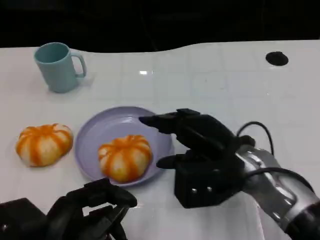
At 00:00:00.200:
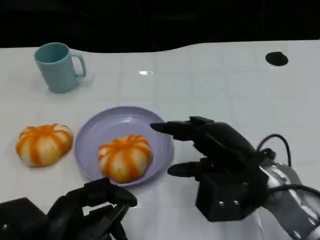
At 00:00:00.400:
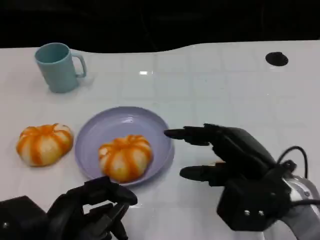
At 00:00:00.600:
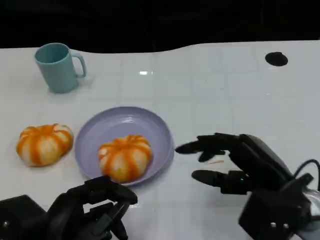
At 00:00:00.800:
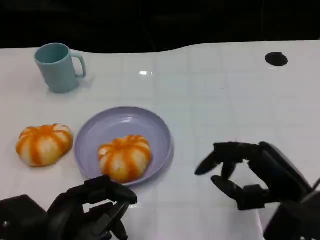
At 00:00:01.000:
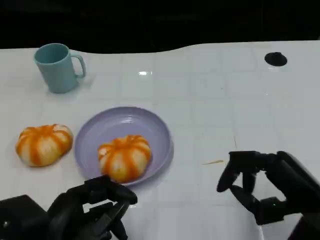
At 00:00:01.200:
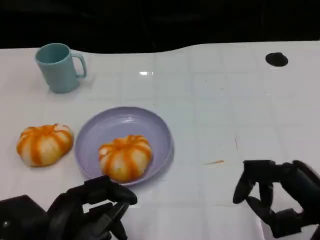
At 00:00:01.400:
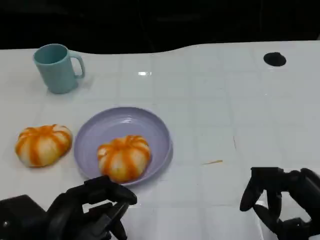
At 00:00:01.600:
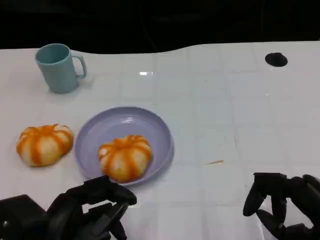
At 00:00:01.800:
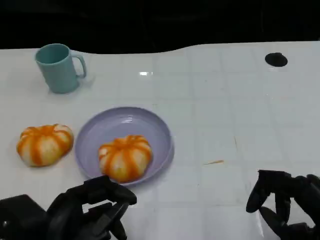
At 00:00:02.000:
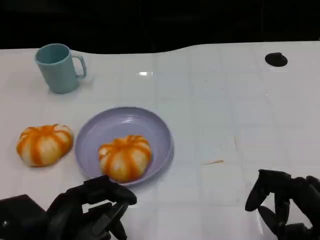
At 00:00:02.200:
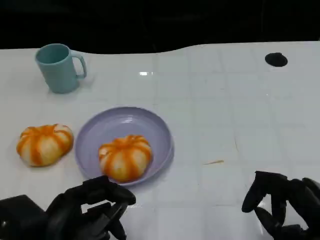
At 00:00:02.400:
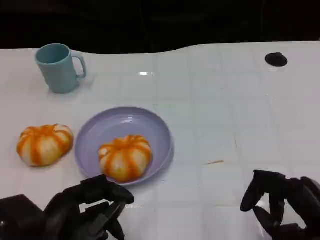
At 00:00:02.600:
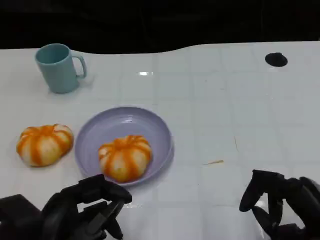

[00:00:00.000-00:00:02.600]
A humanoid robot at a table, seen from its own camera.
Task of the whole recording: Grasp the bread from the table and place it into the plate.
00:00:00.000 to 00:00:01.200: The right hand is displaced to the right and backward by roughly 15 cm.
00:00:01.200 to 00:00:02.600: The hands stay close to where they were, moving slightly.

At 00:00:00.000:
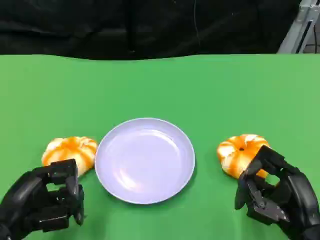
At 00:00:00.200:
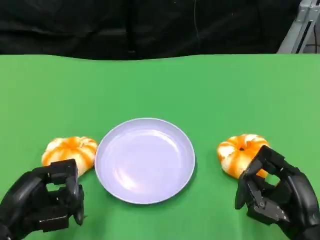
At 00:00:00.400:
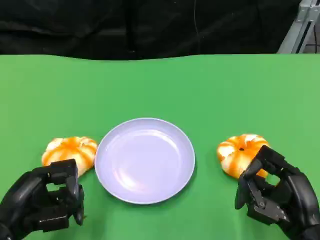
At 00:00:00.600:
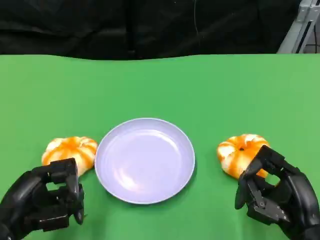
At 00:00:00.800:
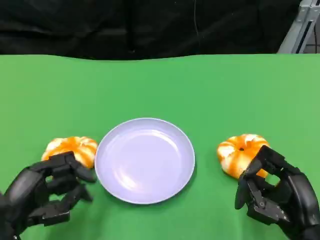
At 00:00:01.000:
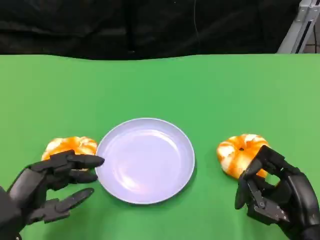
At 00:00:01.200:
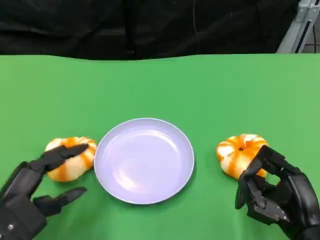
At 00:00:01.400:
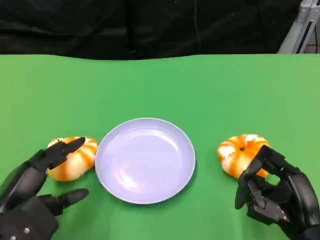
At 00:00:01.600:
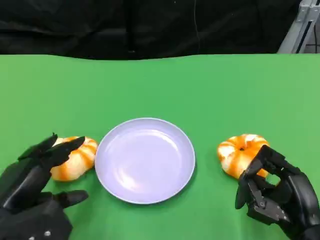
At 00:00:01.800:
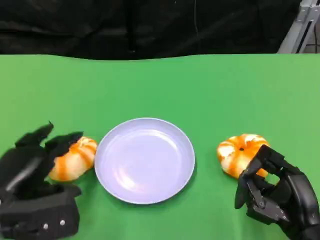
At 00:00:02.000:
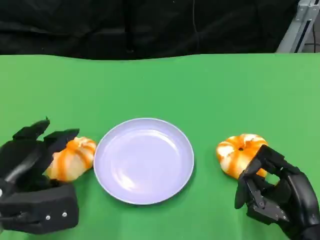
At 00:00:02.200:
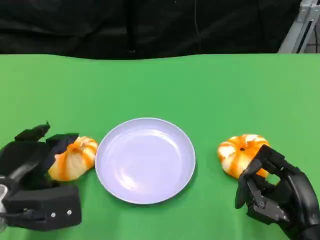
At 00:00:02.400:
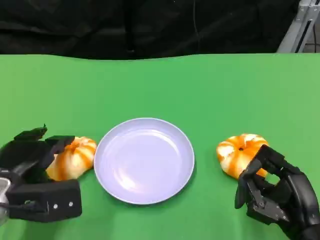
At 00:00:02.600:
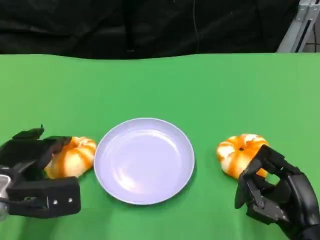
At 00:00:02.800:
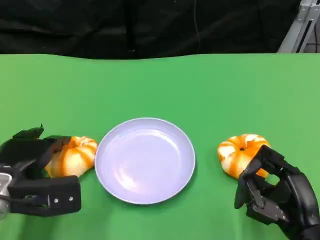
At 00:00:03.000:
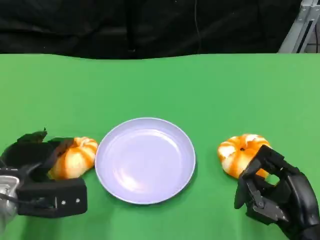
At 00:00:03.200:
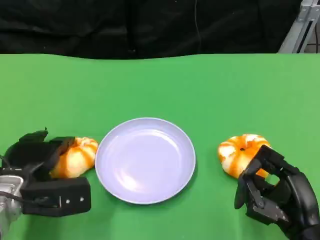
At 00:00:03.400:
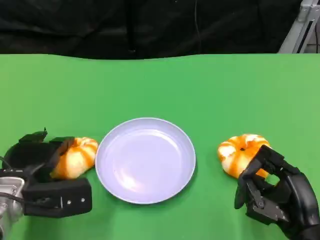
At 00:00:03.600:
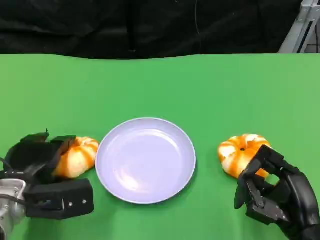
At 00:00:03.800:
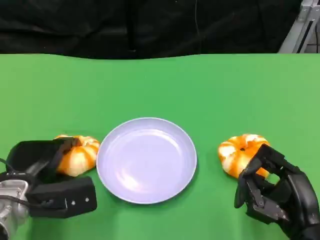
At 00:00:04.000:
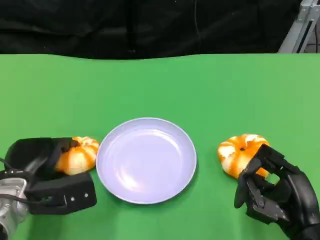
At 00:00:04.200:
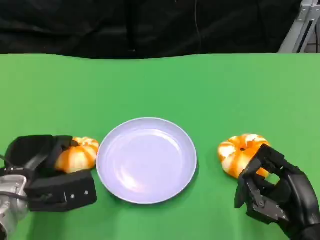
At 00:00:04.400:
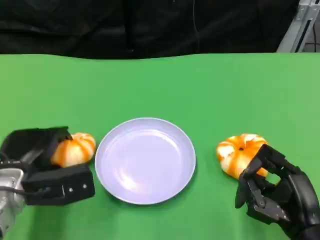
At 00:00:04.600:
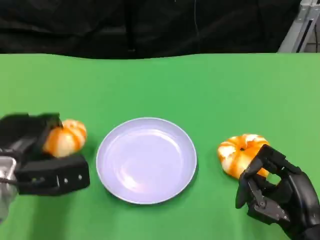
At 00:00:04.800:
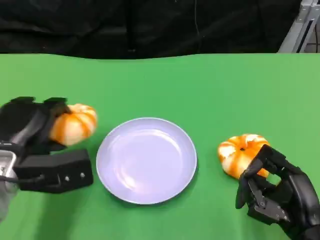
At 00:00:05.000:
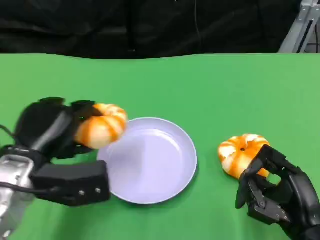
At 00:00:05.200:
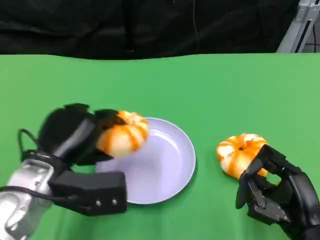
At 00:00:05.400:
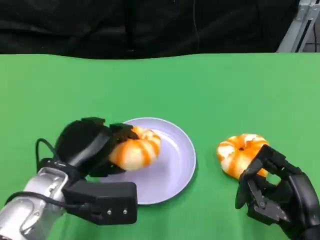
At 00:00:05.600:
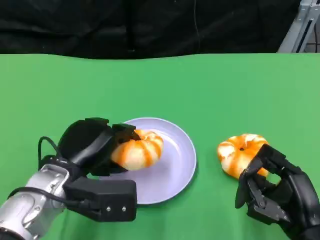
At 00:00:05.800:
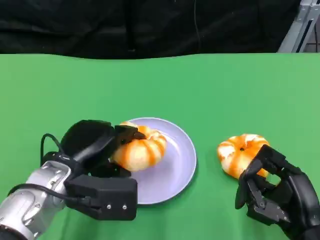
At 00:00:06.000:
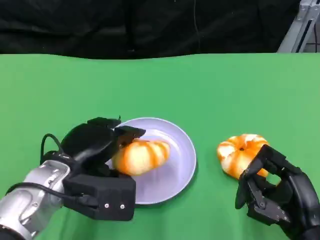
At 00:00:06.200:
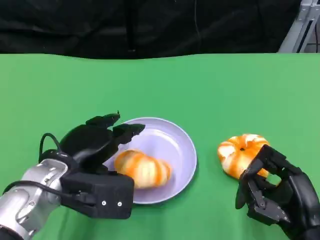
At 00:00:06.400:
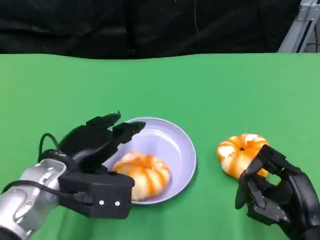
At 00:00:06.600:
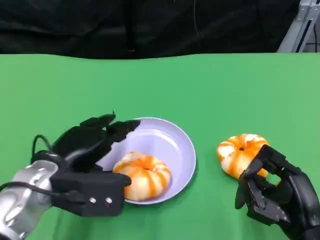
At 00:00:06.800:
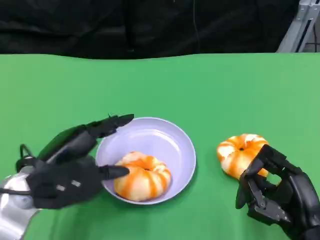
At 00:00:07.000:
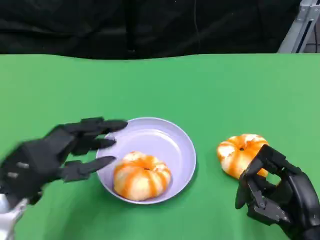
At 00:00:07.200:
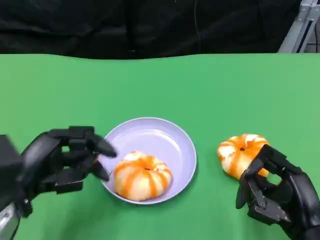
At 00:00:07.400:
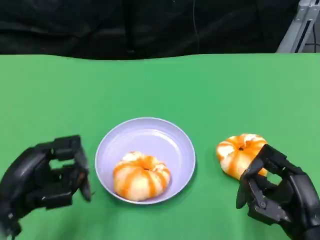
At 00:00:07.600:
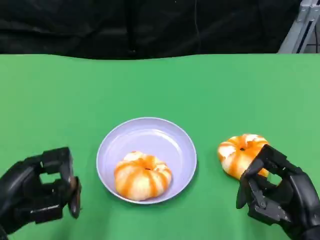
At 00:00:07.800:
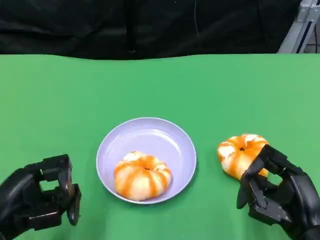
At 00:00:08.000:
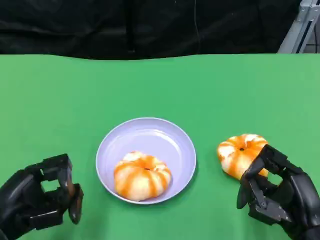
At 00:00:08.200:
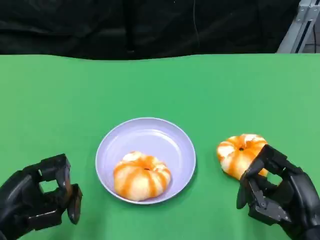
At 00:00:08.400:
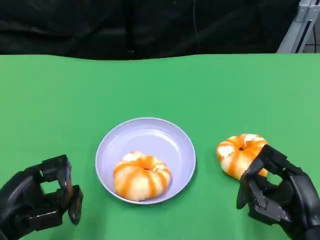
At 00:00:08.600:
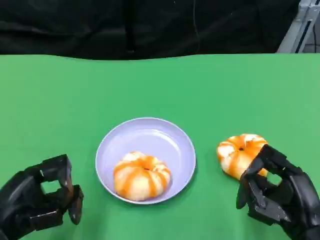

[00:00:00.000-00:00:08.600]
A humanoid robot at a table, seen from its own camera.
Task of the whole recording: Grasp the bread from the table and place it into the plate.
00:00:01.400 to 00:00:02.800: The left hand shifts some 10 cm forward.
00:00:02.800 to 00:00:04.400: There are only small adjustments of the hands.
00:00:04.400 to 00:00:05.800: The left hand shifts approximately 5 cm to the right.
00:00:05.800 to 00:00:07.200: The left hand travels to the left by some 10 cm.
00:00:07.200 to 00:00:08.600: The left hand shifts by approximately 5 cm.

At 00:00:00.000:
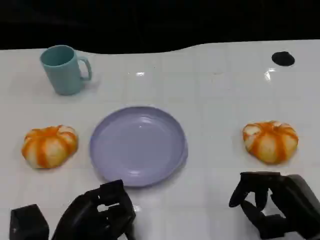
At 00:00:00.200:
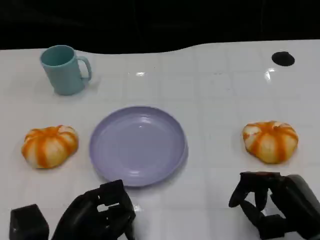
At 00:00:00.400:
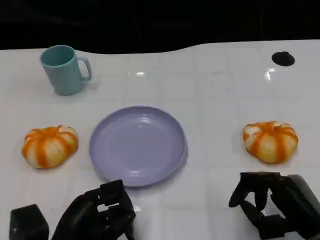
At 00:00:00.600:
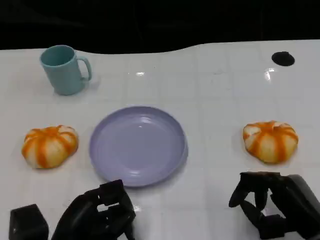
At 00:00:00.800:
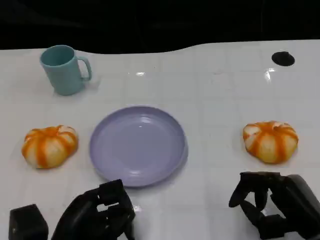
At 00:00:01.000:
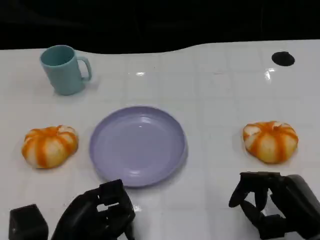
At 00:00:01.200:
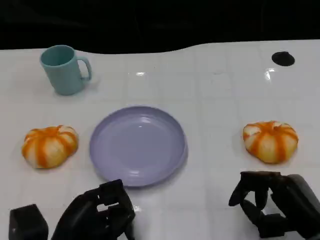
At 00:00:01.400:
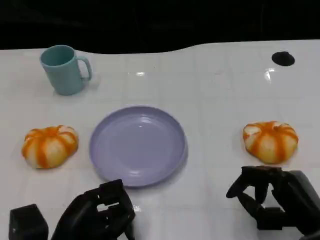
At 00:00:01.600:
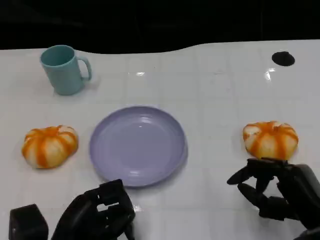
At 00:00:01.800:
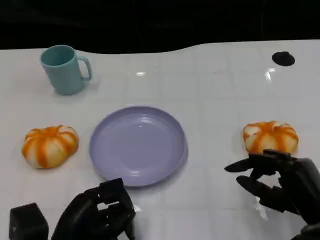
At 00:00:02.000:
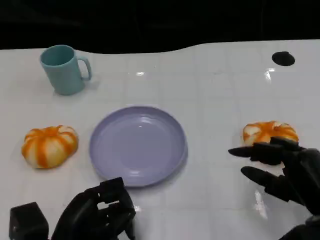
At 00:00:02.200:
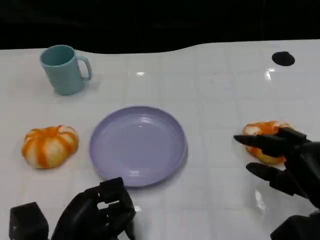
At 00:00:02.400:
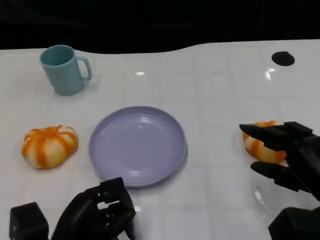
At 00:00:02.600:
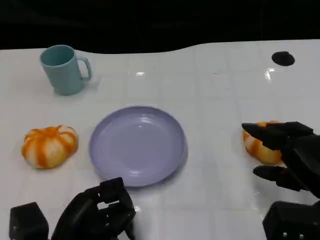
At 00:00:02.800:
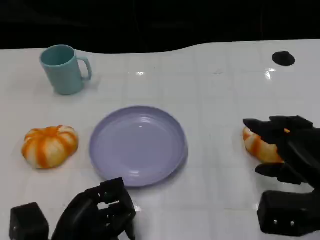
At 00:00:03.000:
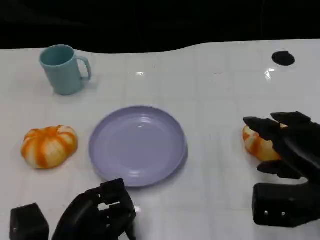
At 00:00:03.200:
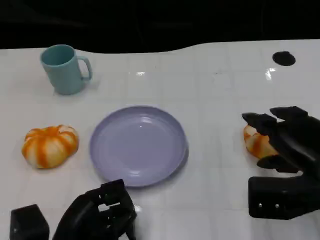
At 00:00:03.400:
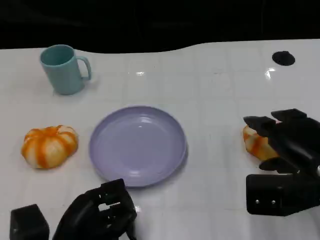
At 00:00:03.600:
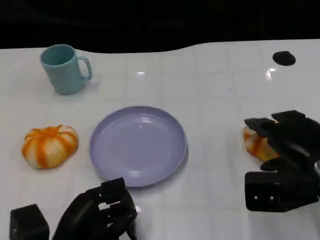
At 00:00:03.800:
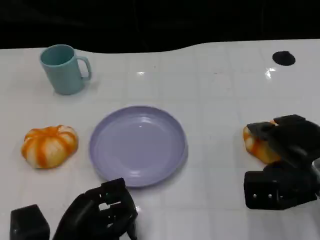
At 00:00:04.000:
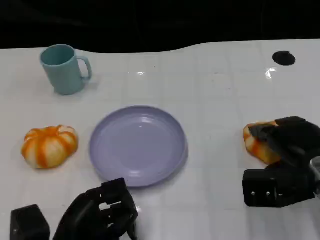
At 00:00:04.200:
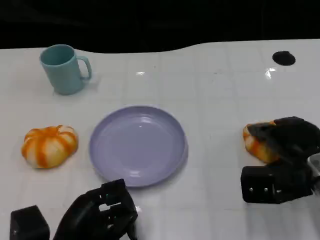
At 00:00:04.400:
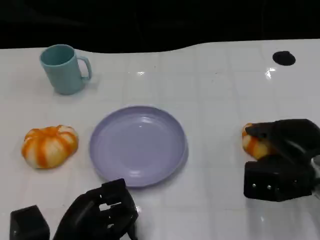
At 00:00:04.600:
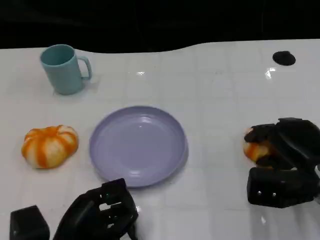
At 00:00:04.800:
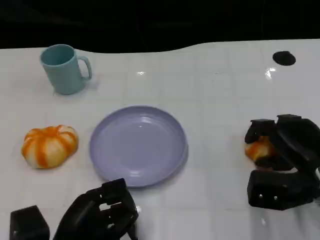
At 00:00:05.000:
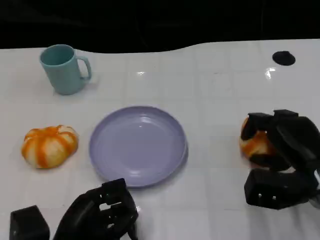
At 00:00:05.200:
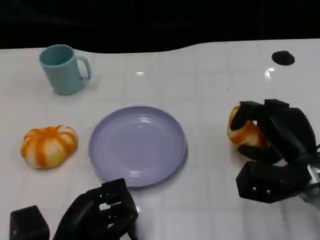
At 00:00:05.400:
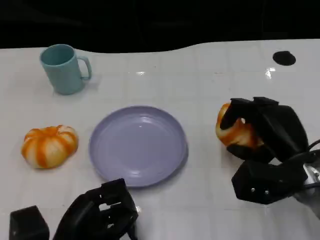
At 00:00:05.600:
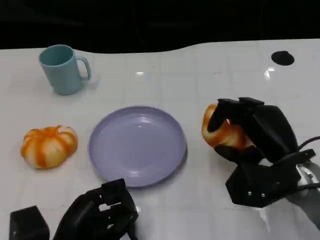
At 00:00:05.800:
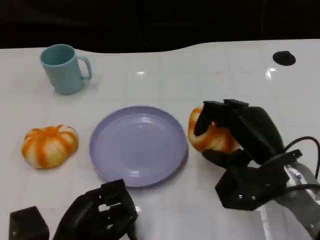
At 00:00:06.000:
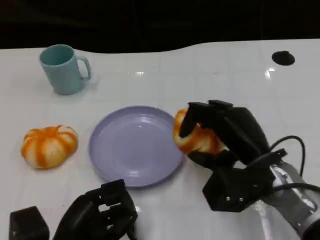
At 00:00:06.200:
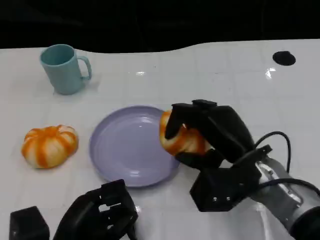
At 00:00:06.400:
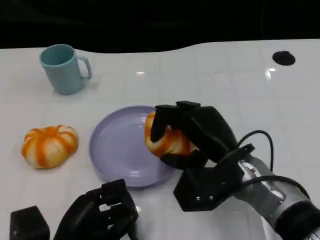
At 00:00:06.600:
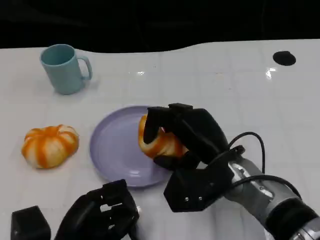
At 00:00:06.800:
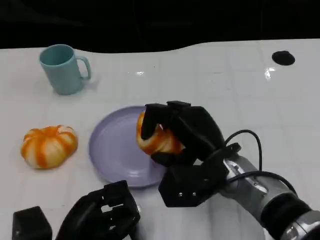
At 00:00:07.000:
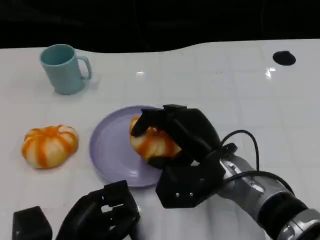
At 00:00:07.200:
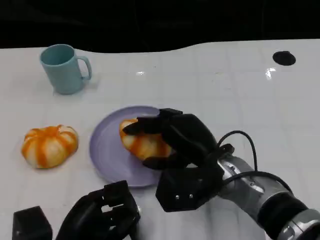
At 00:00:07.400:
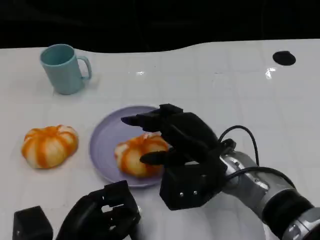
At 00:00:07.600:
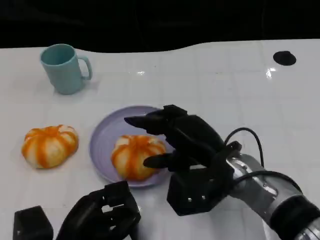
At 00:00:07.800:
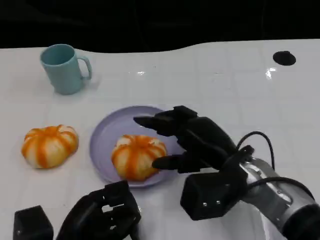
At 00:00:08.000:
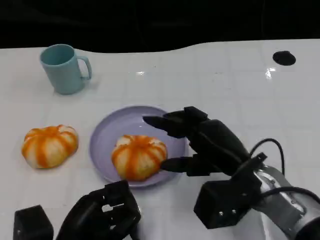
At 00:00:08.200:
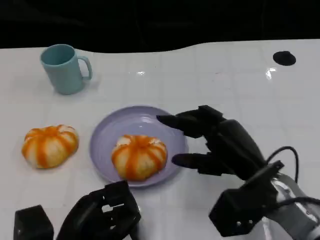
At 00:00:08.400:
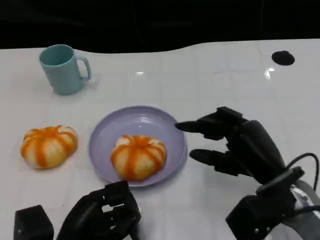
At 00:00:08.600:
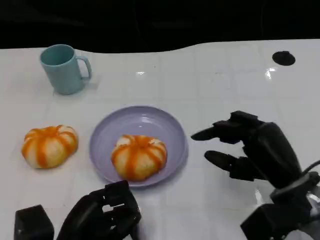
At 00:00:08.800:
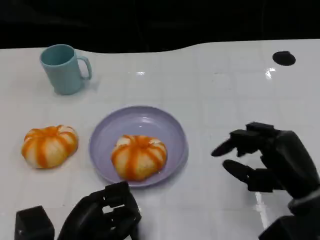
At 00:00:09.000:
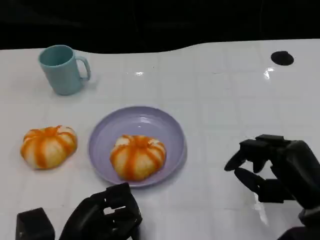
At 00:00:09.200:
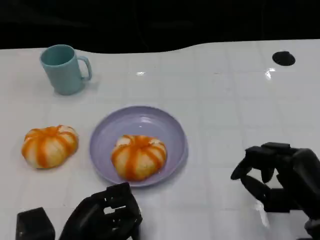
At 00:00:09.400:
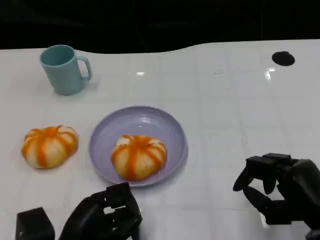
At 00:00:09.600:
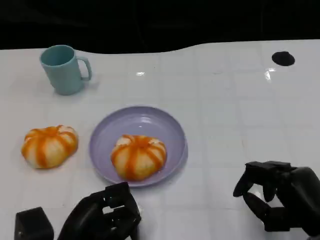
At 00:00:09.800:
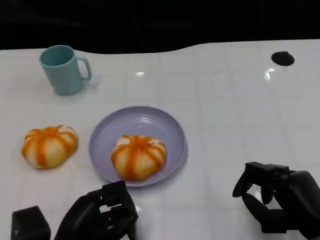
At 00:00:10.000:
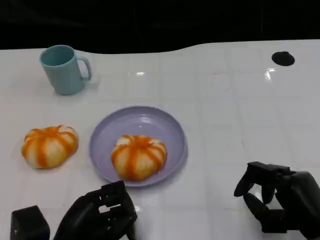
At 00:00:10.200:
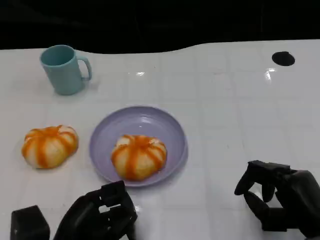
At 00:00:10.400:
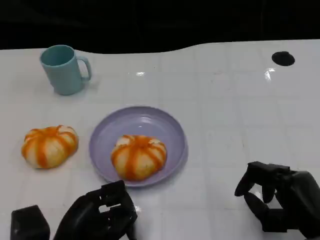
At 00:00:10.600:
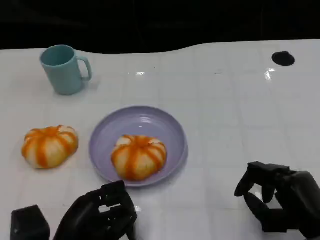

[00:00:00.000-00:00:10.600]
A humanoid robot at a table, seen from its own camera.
Task of the whole recording: Grasp the bread from the table and place it into the plate.
00:00:00.000 to 00:00:01.600: The hands move only a little.
00:00:01.600 to 00:00:03.000: The right hand goes approximately 5 cm upward.
00:00:03.000 to 00:00:04.600: The right hand changes place by some 5 cm.
00:00:04.600 to 00:00:06.000: The right hand shifts about 10 cm to the left.
00:00:07.600 to 00:00:09.000: The right hand goes roughly 15 cm to the right and backward.
00:00:09.000 to 00:00:10.600: There are only small adjustments of the hands.
